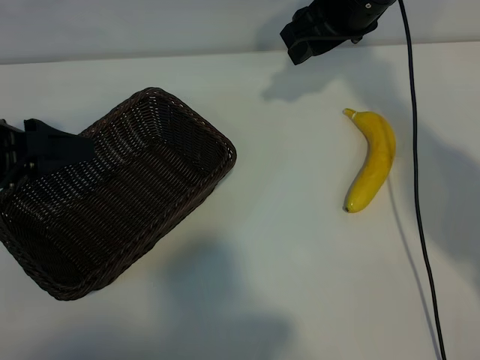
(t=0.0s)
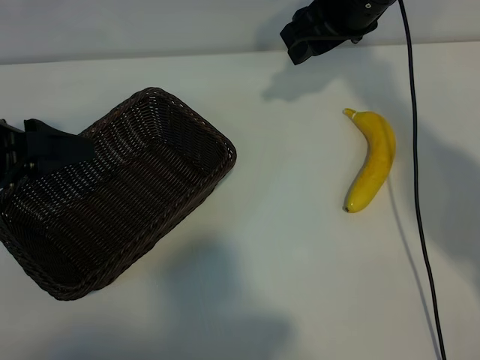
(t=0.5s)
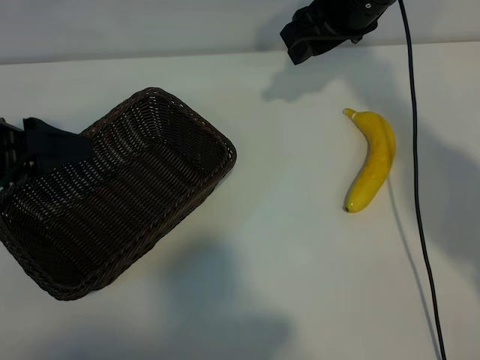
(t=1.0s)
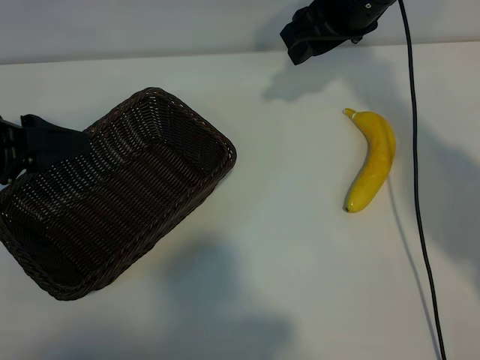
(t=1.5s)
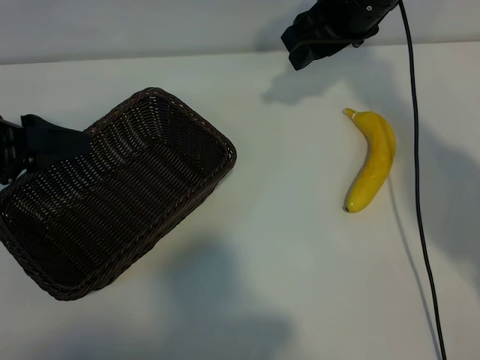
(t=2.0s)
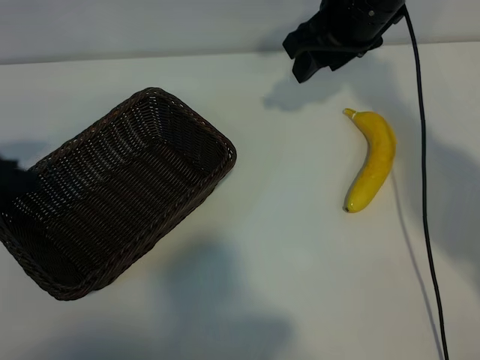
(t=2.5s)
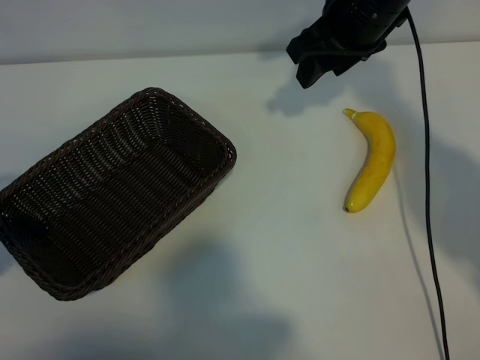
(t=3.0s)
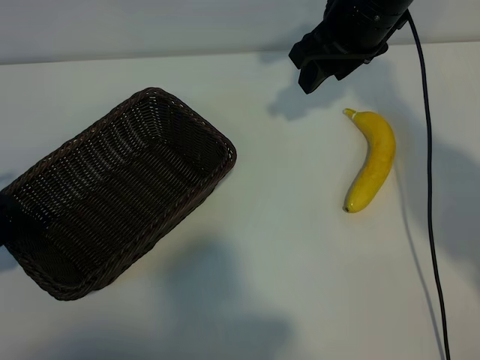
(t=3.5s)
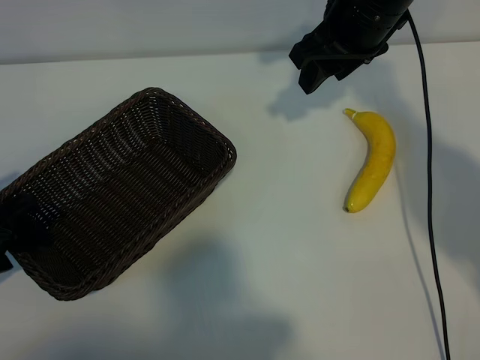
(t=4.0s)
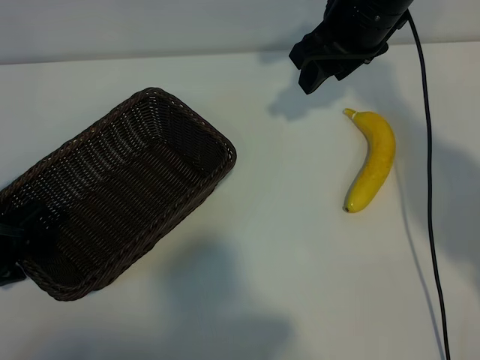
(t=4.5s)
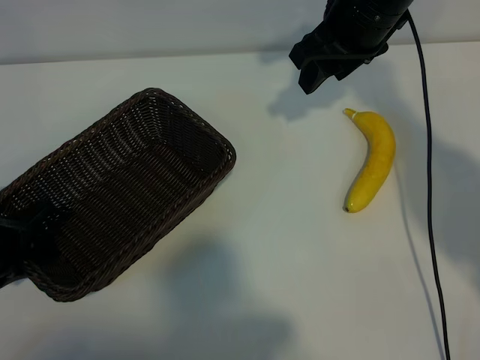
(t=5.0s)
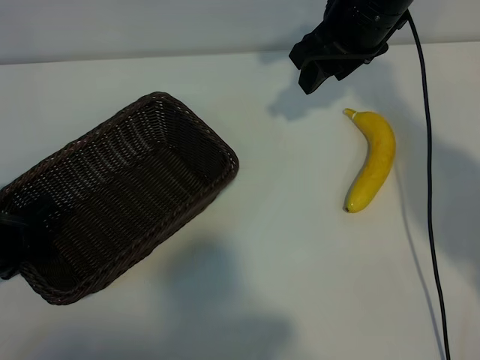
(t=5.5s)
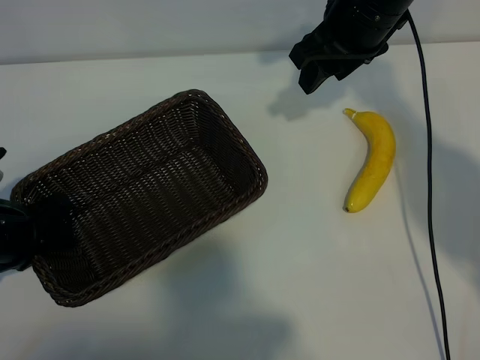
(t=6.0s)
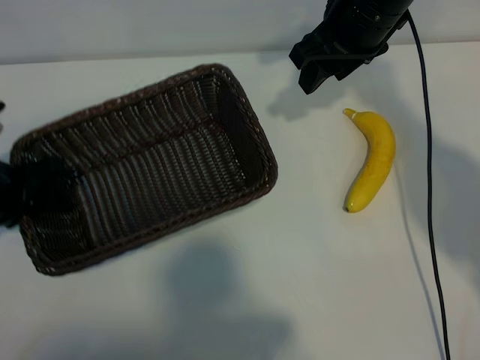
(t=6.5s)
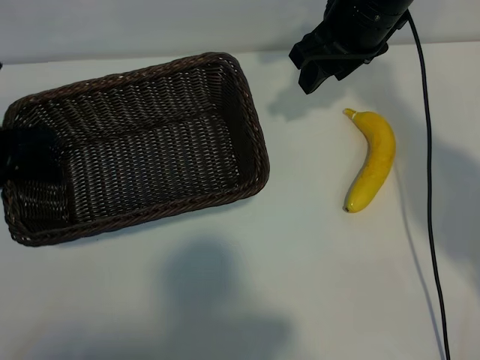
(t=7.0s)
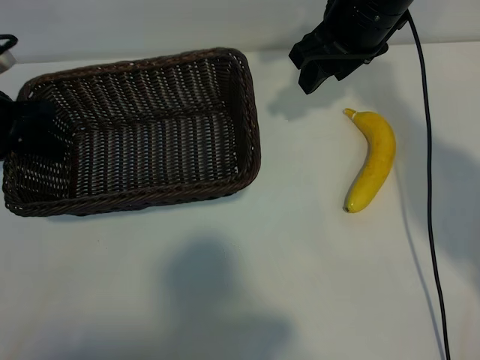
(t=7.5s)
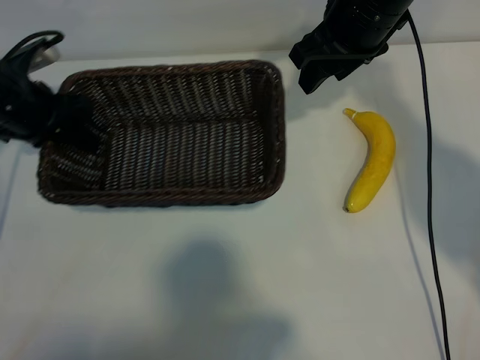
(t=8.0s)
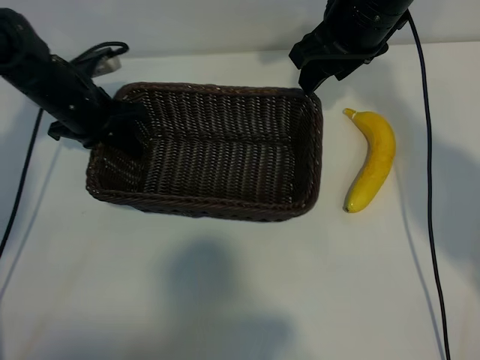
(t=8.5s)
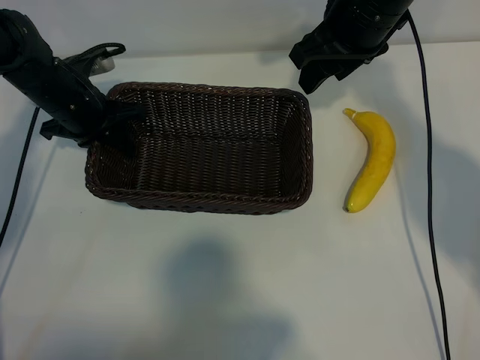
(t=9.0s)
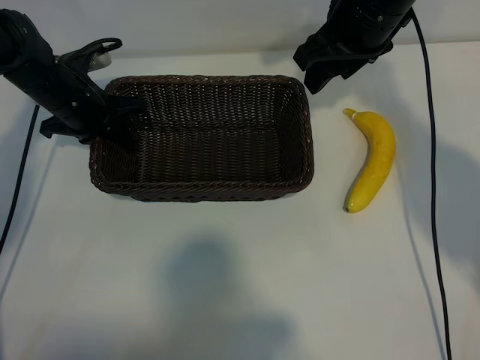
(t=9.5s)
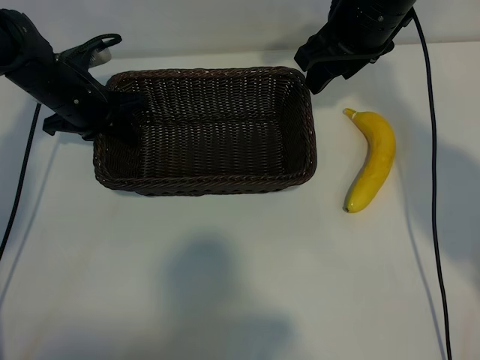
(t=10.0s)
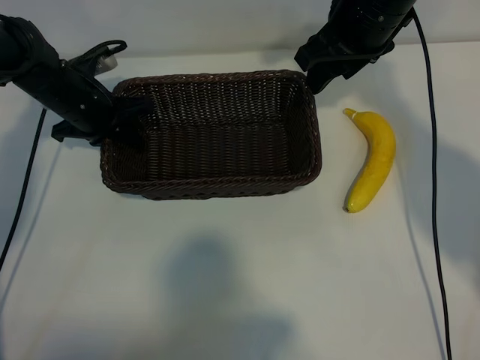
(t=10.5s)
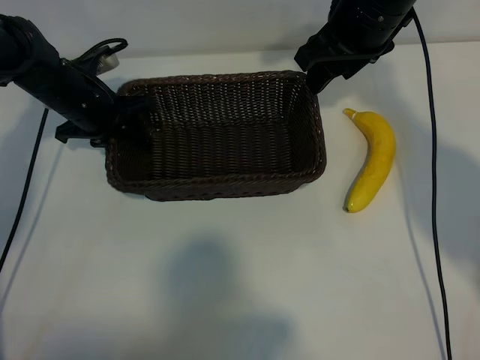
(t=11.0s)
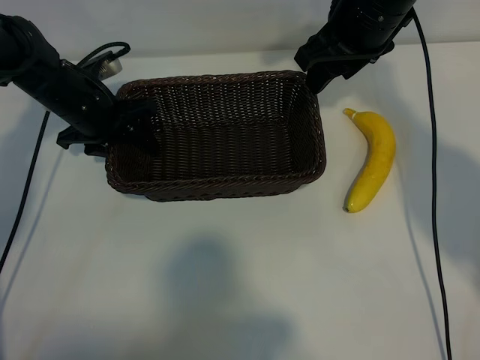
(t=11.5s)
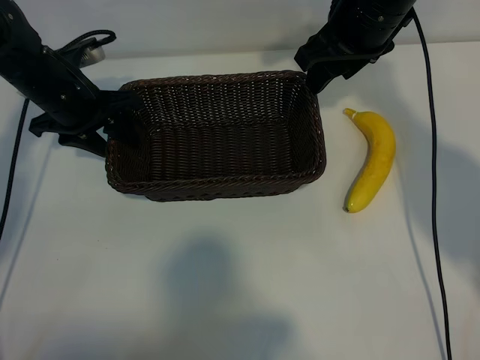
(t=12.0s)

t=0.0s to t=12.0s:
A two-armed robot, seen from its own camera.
Task of the whole recording: pick up the banana and put it into the basket.
Step, t=1.0s to t=5.0s: Grasp the basket with the left gripper.
Step, t=6.0s to t=11.5s: Place the basket in the center of the table with the left gripper.

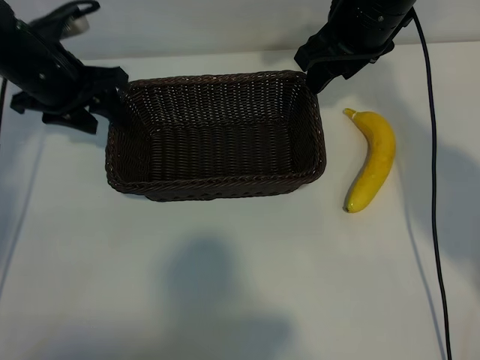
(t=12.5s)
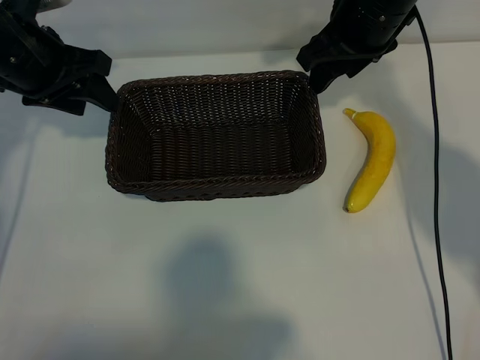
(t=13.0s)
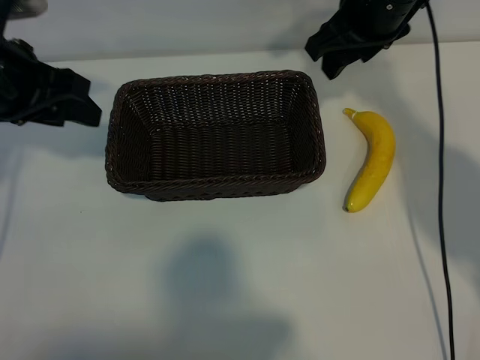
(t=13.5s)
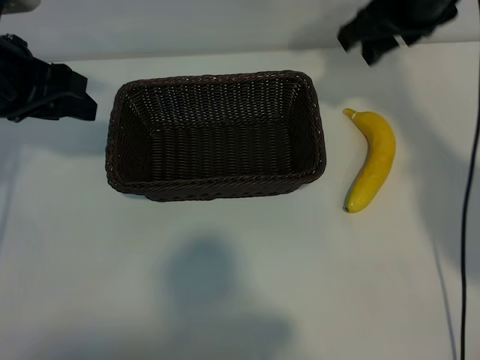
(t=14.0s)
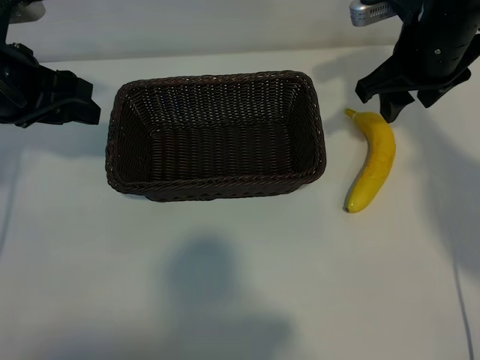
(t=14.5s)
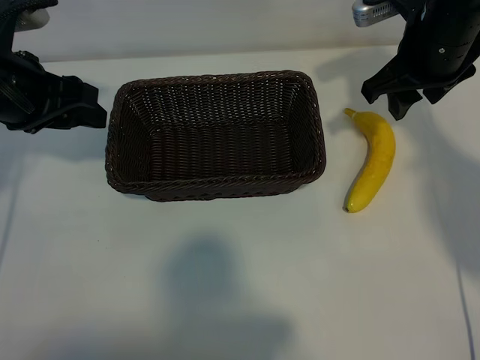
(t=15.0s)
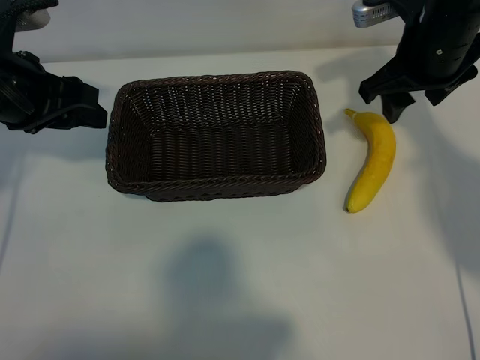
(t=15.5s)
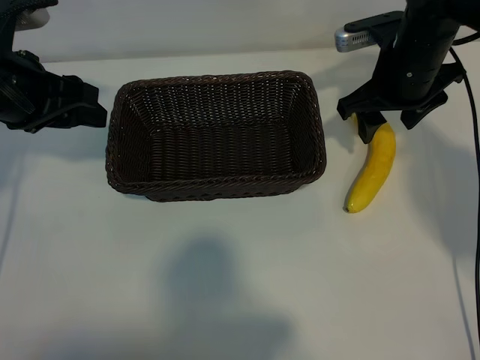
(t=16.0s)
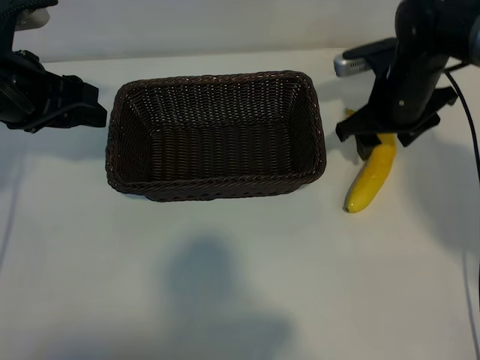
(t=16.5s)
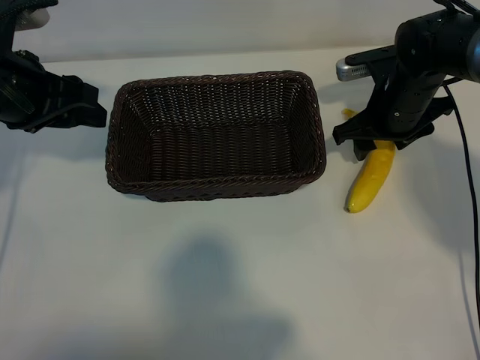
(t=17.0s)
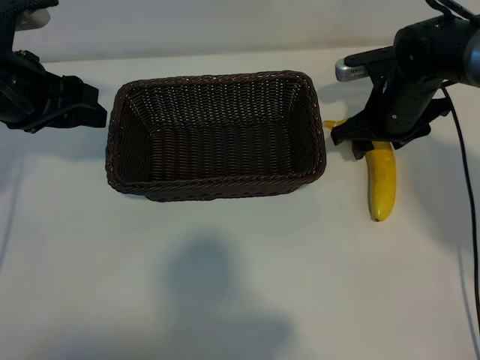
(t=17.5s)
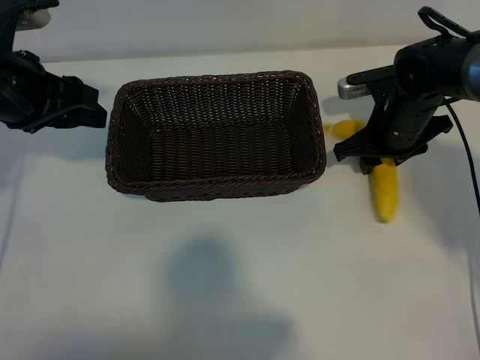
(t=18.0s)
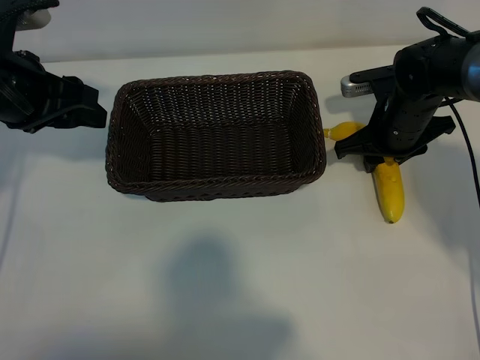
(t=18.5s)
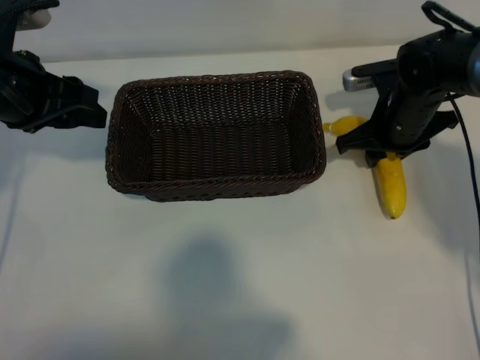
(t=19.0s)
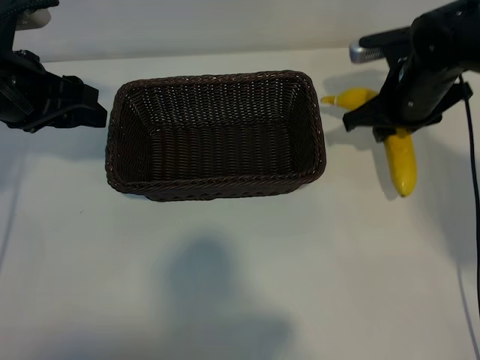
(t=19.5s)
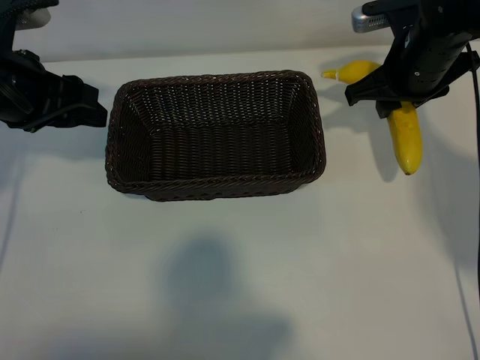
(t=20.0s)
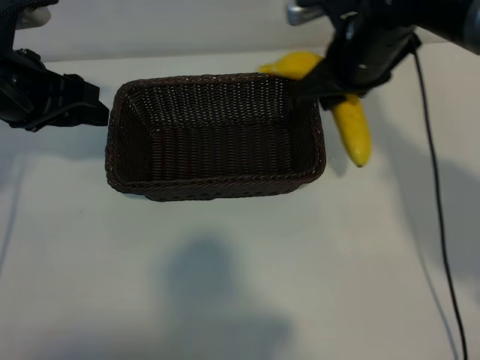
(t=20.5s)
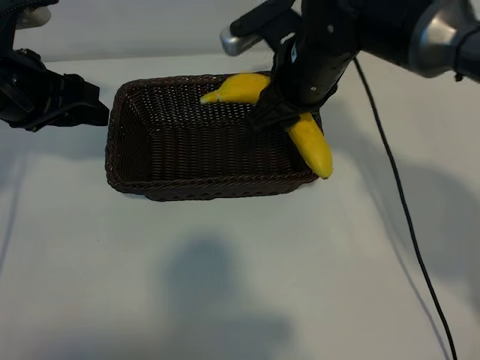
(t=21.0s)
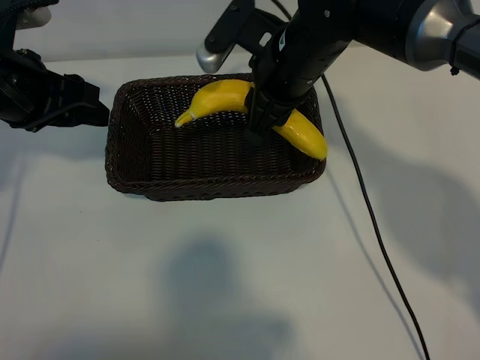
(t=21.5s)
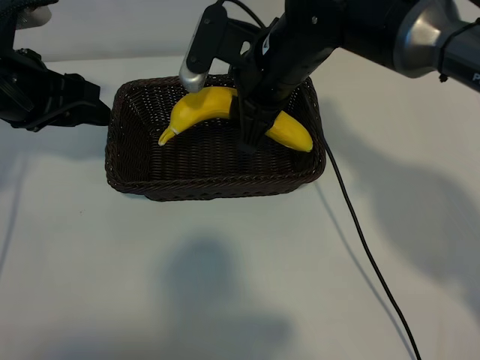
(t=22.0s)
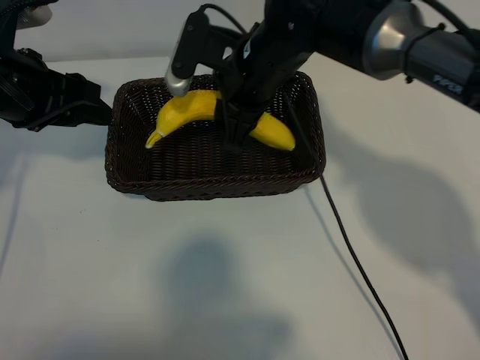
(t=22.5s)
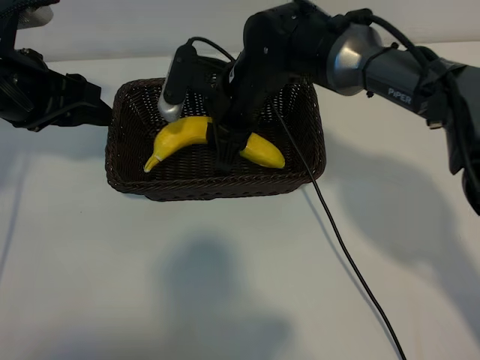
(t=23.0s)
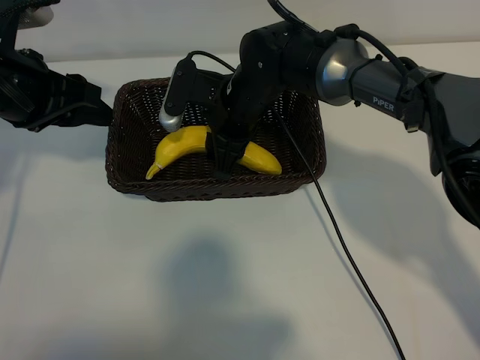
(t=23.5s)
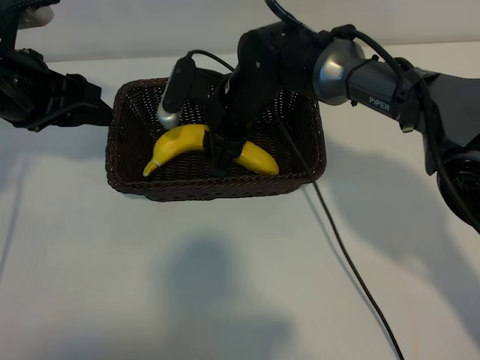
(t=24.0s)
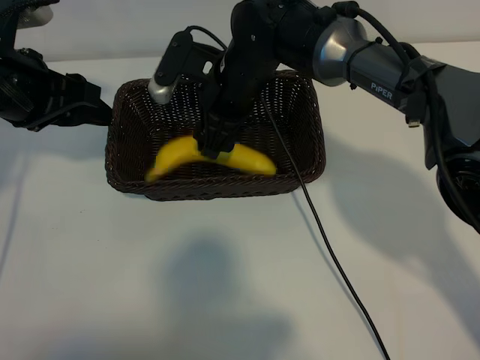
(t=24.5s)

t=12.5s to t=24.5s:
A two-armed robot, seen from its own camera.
Task of the whole recording: pick up the banana and put it into the basket.
Step, t=12.5s to t=18.5s: Grasp the banana with right gripper.
